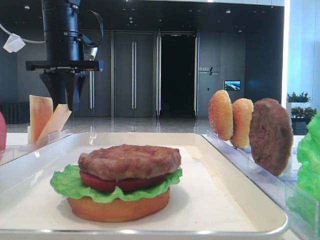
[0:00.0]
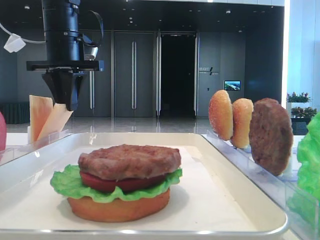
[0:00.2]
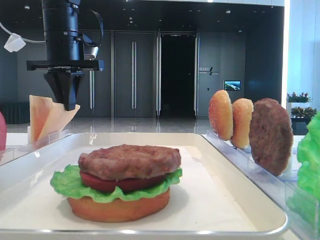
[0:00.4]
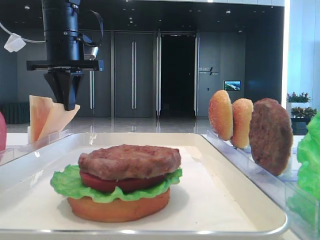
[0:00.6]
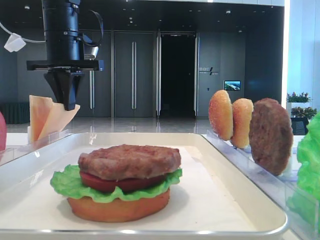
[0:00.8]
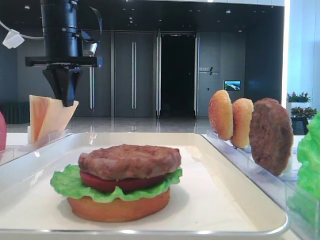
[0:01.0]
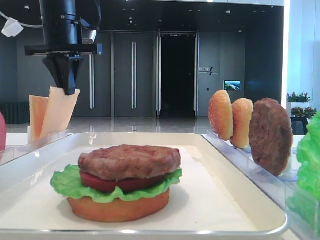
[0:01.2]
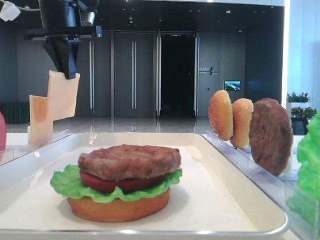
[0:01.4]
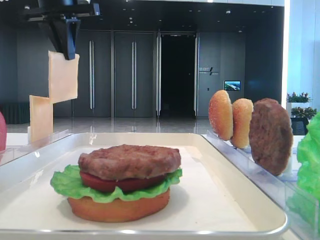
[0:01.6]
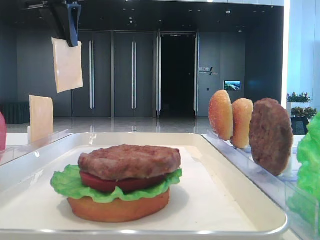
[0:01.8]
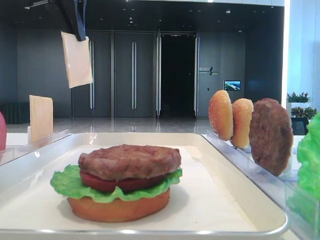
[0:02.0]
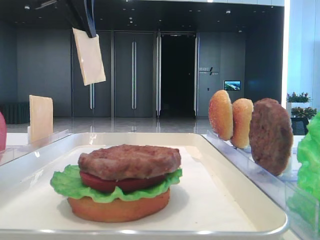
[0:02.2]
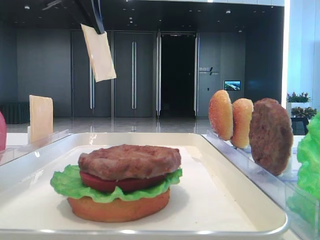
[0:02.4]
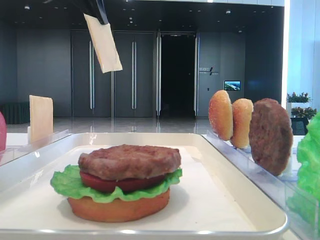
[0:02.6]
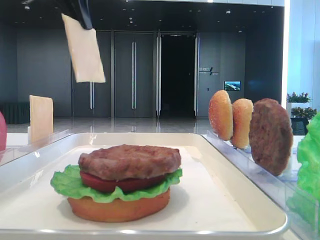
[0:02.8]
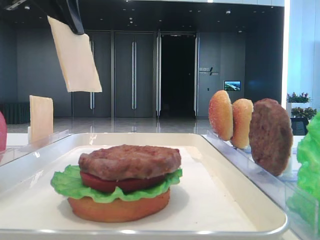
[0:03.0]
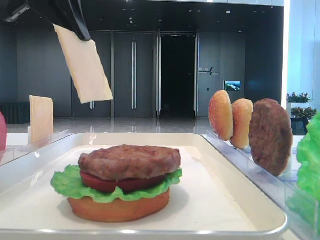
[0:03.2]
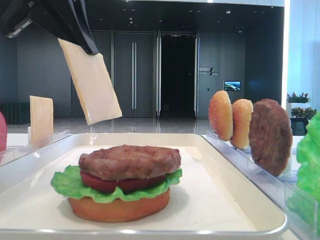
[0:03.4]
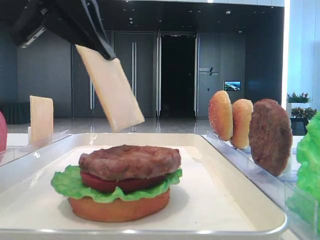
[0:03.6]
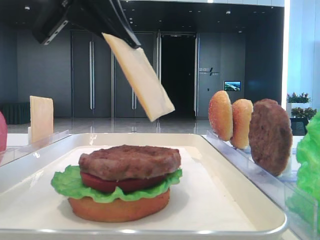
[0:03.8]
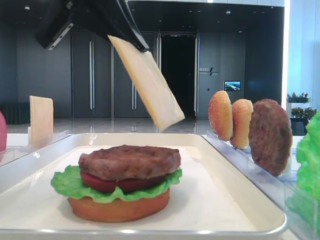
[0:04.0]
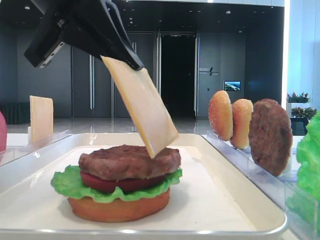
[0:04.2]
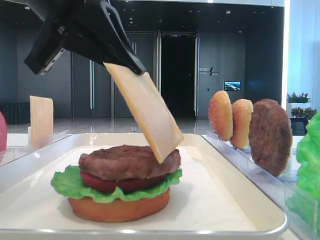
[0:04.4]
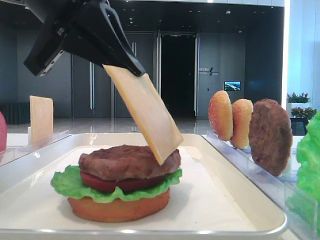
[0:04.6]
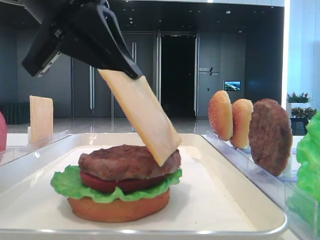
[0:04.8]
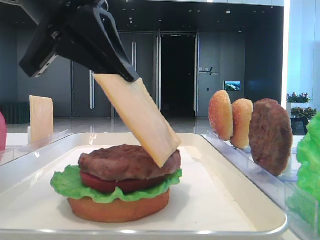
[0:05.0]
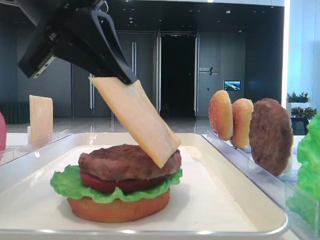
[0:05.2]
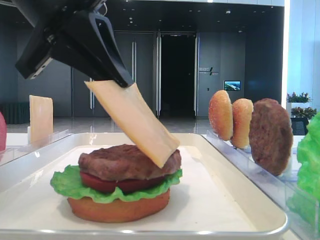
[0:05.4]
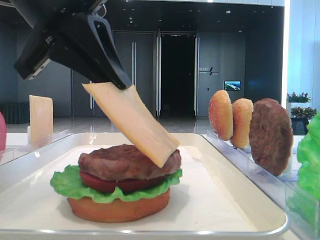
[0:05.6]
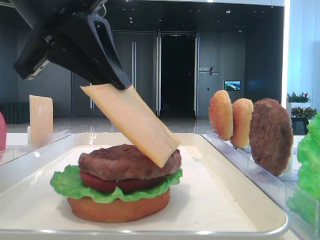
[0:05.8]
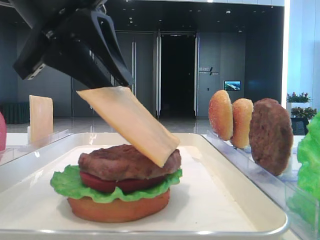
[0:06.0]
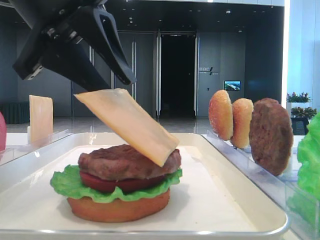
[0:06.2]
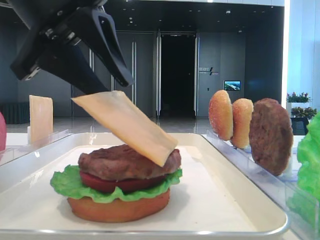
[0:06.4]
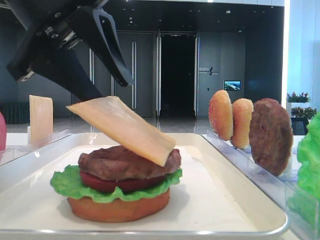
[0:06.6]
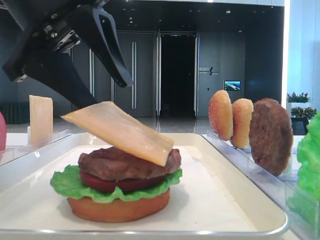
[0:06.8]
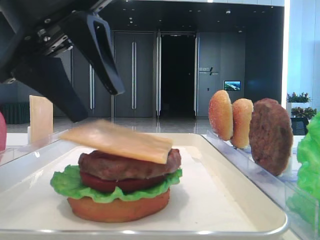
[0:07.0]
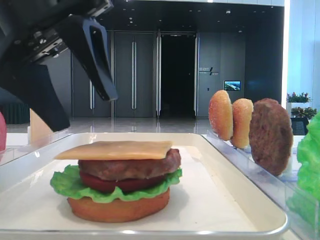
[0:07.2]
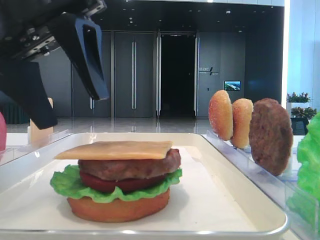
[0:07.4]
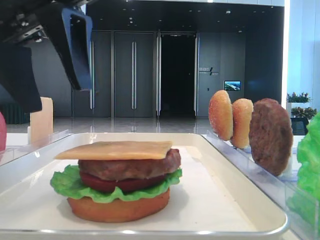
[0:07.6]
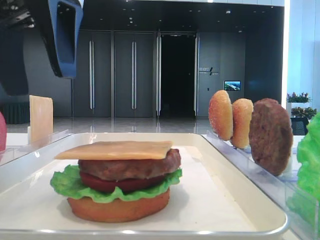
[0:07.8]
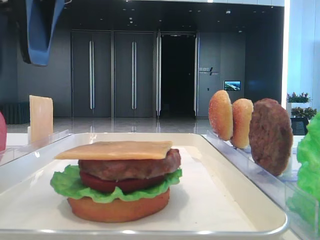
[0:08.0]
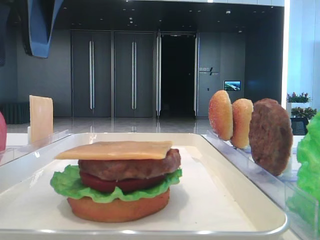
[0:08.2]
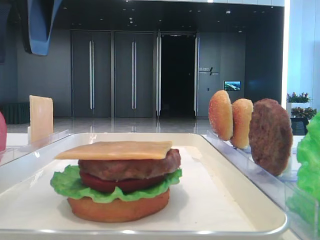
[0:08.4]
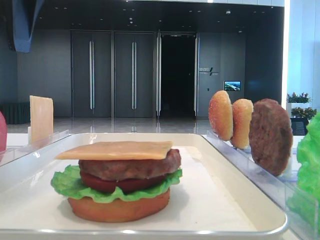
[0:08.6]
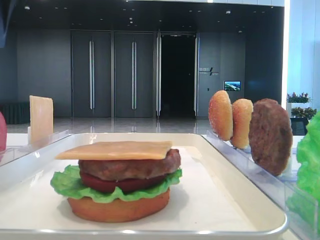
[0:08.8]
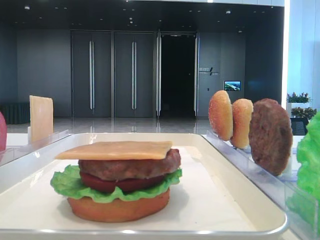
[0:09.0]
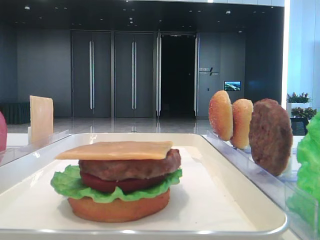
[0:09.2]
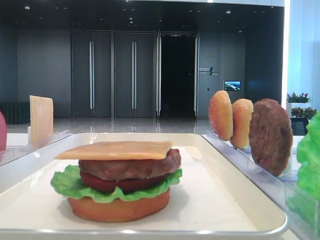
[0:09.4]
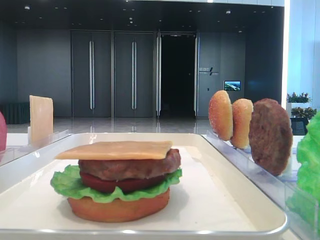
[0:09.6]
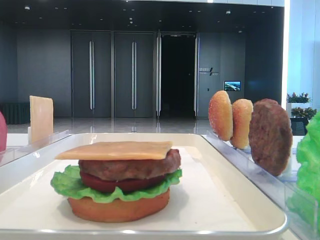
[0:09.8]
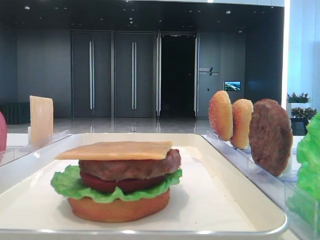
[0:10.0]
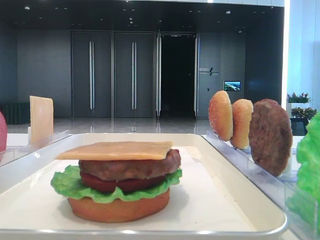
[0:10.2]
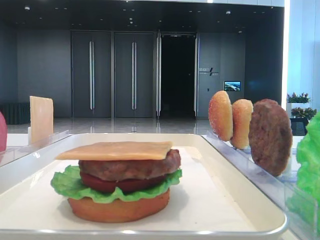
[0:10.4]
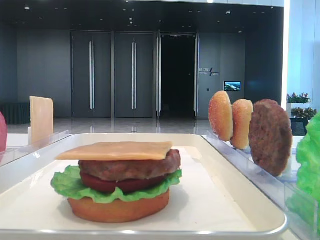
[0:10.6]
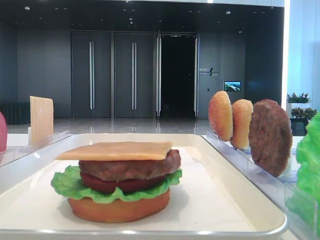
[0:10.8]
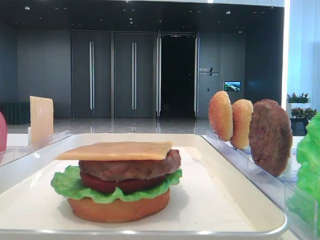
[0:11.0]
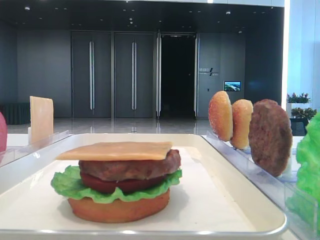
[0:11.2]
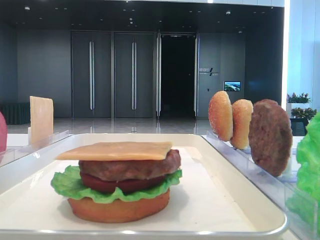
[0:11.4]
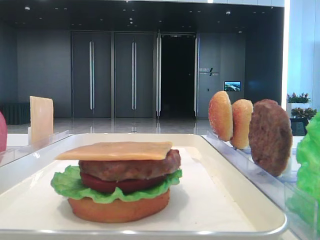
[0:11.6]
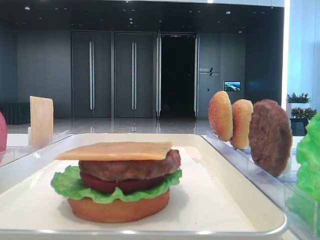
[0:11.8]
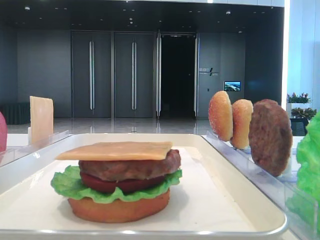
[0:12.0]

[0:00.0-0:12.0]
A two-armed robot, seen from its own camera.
Step, 0:00.4 to 0:07.0: Place the cheese slice on the patty with the left hand.
0:00.0 to 0:01.6: The left gripper goes some 10 cm upward, and closes its fingers.
0:01.6 to 0:03.0: The left gripper travels backward by roughly 10 cm.
0:03.0 to 0:04.4: The left gripper moves downward, backward and to the right, approximately 15 cm.
0:04.4 to 0:06.0: The grippers move only a little.
0:06.0 to 0:07.6: The left gripper opens.
0:07.6 to 0:09.0: The left gripper shifts some 15 cm to the left, upward and forward.

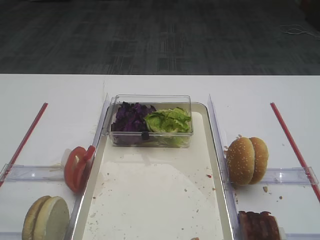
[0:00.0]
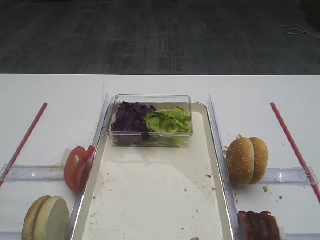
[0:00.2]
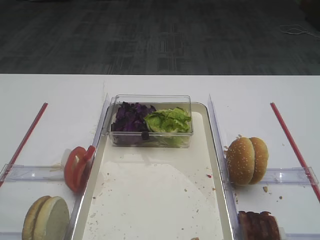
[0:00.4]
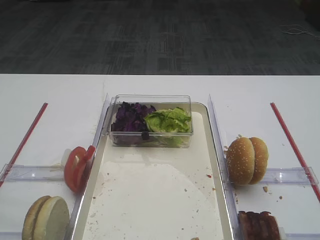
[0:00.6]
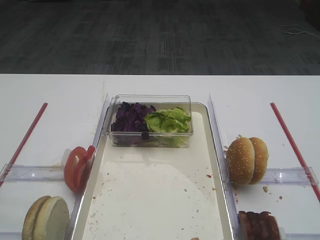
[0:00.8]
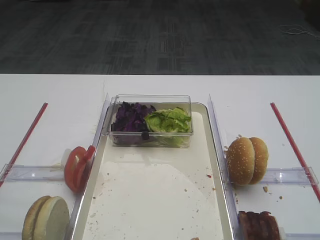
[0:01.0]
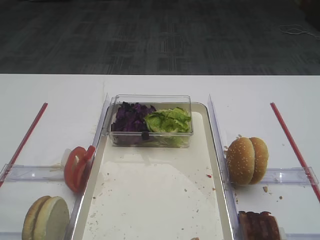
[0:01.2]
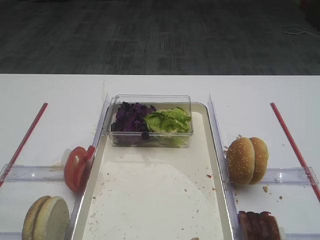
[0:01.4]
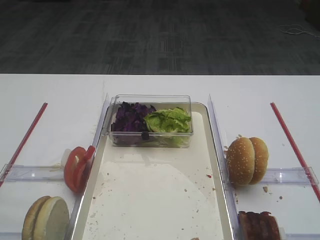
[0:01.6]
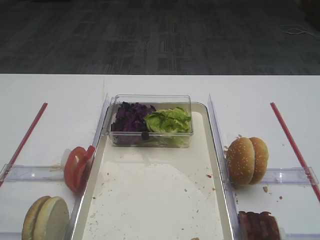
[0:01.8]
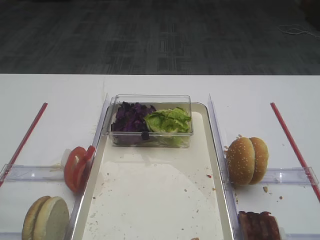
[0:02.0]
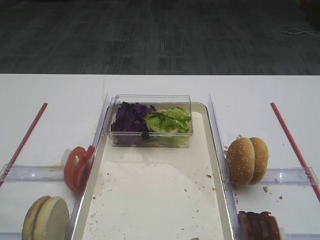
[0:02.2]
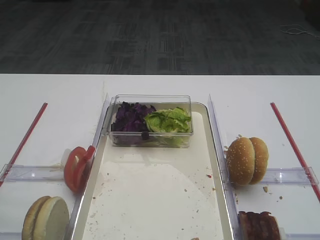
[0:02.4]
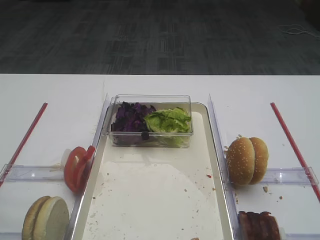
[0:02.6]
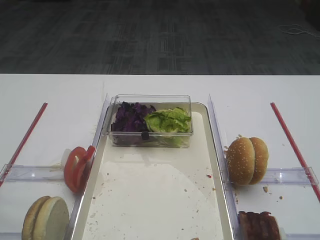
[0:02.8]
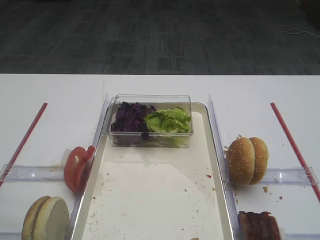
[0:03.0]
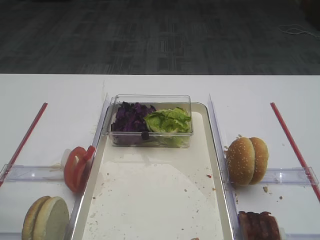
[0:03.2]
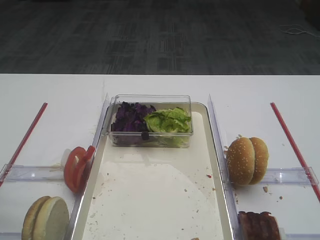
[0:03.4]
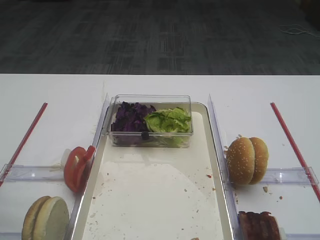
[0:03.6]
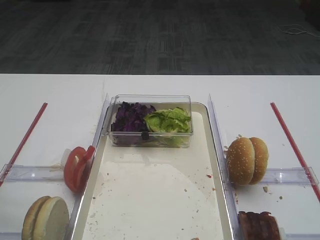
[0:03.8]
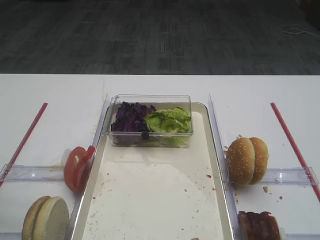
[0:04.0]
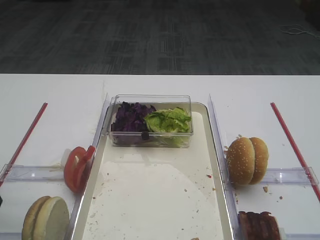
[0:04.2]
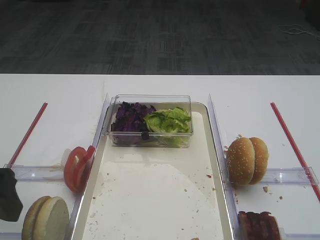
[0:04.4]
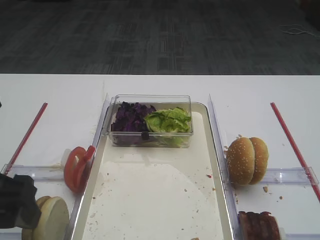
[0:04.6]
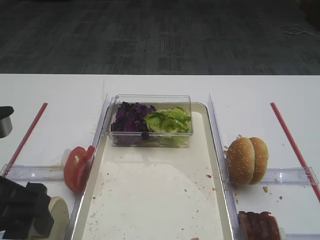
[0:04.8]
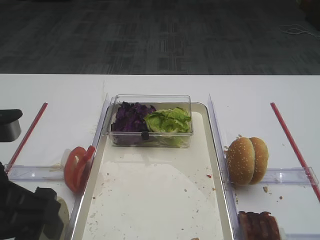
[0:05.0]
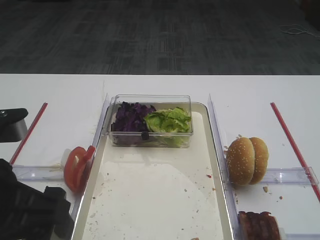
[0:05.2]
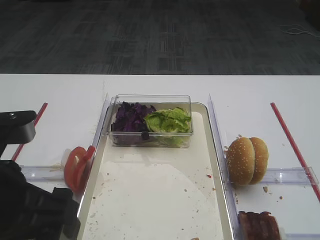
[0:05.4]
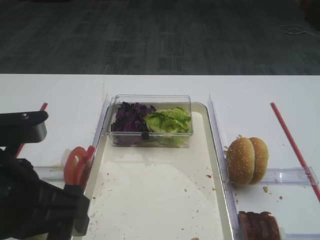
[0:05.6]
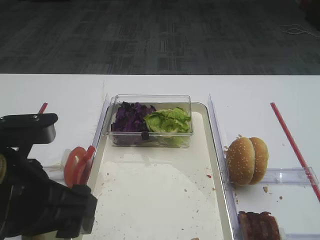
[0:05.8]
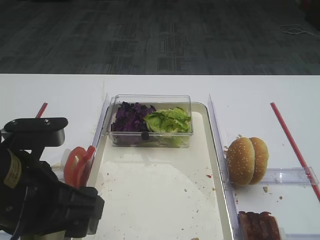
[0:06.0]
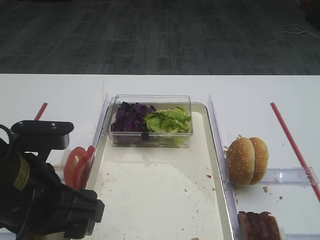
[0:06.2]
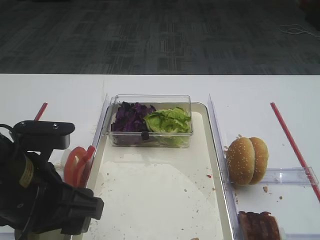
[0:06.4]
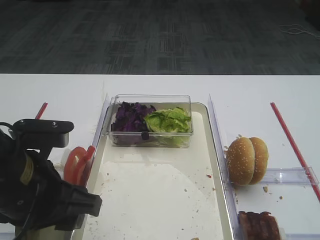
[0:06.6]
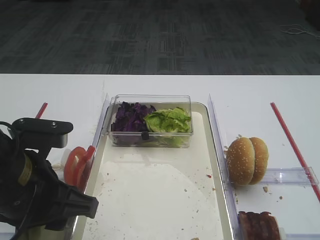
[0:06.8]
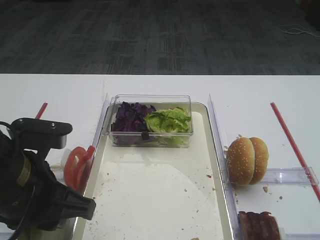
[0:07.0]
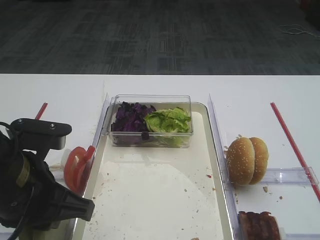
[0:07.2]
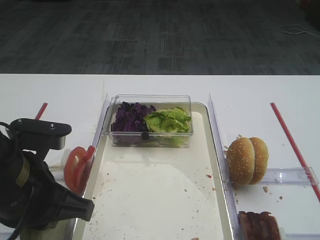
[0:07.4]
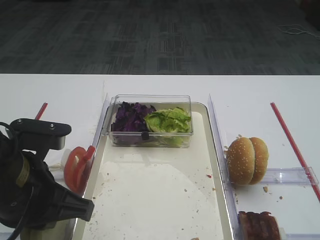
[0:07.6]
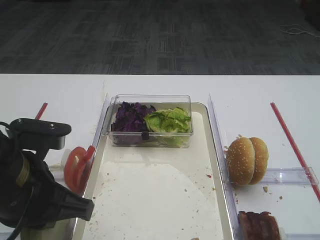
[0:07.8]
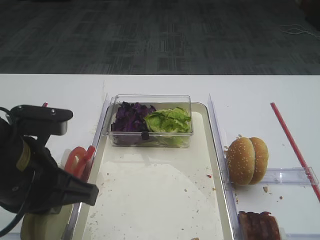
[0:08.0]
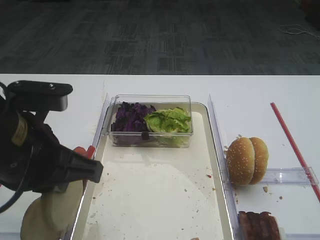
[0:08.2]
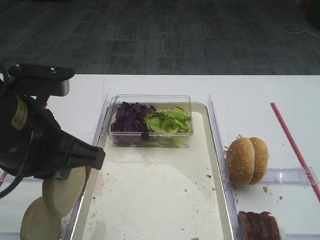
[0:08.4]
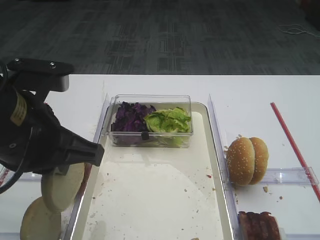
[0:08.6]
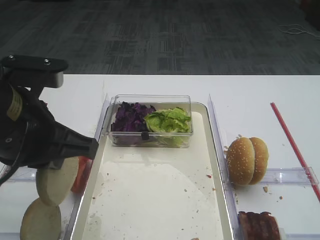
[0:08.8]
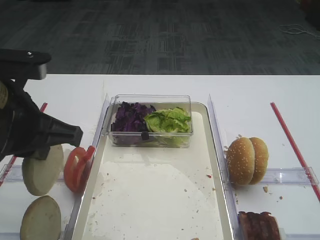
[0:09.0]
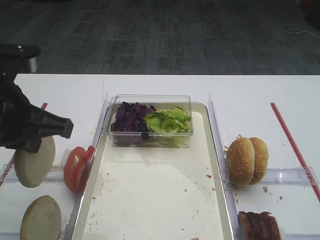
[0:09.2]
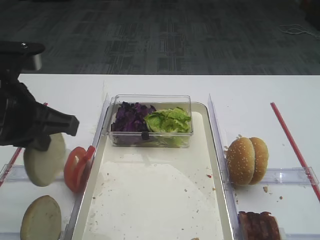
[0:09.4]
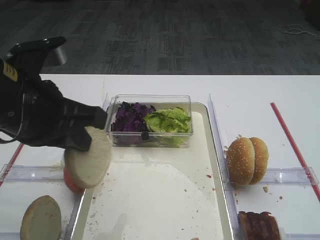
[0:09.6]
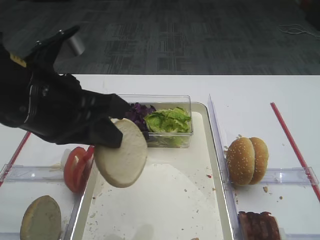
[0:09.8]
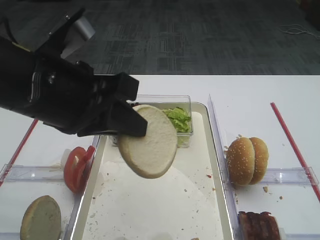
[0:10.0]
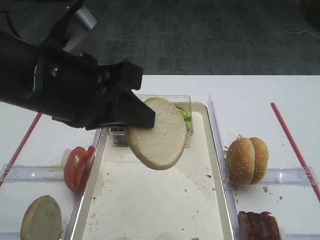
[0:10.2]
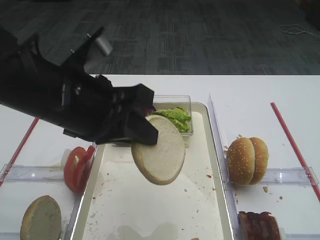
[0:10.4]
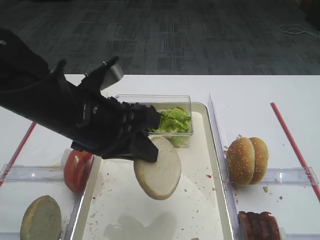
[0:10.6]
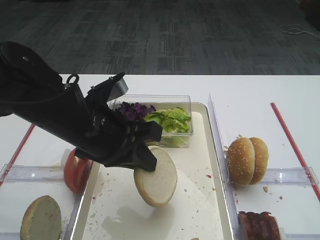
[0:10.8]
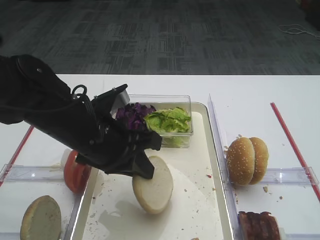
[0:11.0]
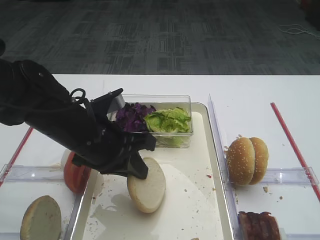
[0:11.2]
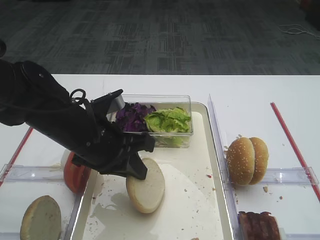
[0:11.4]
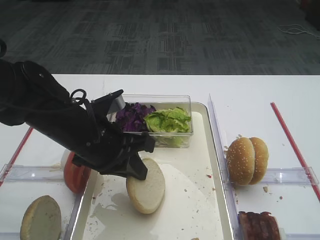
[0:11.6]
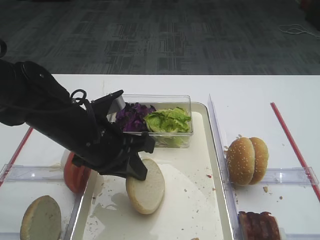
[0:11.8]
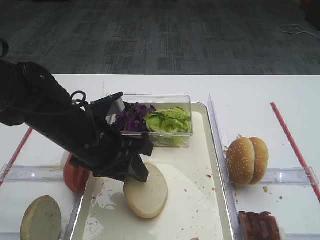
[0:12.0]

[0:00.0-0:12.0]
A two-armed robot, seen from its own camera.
Step, 0:00.0 to 0:08.6: Pick up the bread slice with the left gripper.
0:03.0 to 0:04.4: The left gripper shifts approximately 5 cm to the right.
0:04.4 to 0:06.0: The left gripper is displaced to the right by about 10 cm.
0:06.0 to 0:07.6: The left gripper closes up.
0:07.6 to 0:09.0: The left gripper travels upward by approximately 5 cm.
0:09.0 to 0:10.4: The left gripper travels to the right by some 5 cm.
0:10.4 to 0:12.0: The left gripper heads downward, covering roughly 10 cm.
